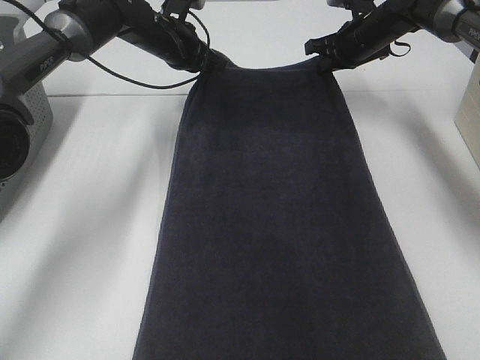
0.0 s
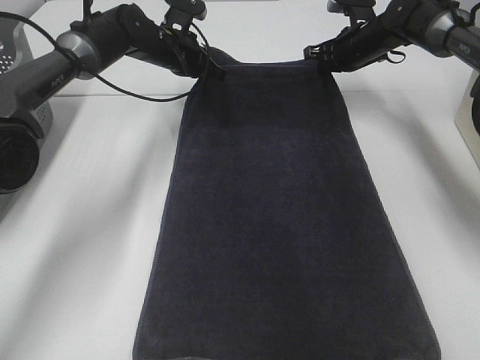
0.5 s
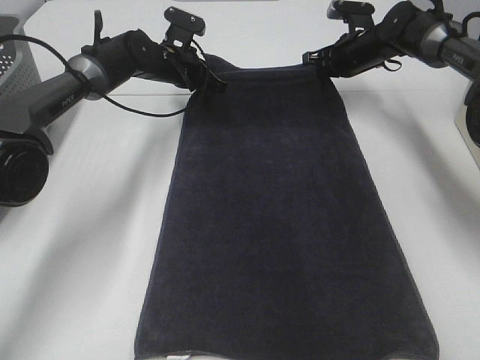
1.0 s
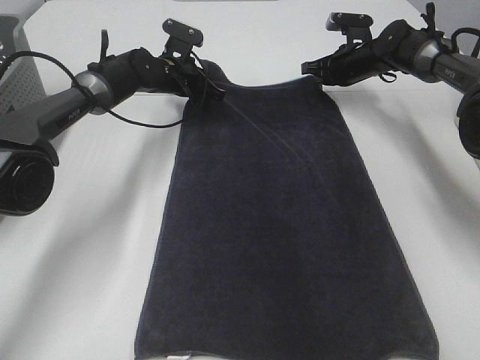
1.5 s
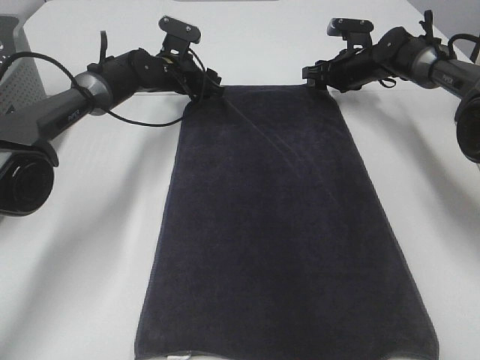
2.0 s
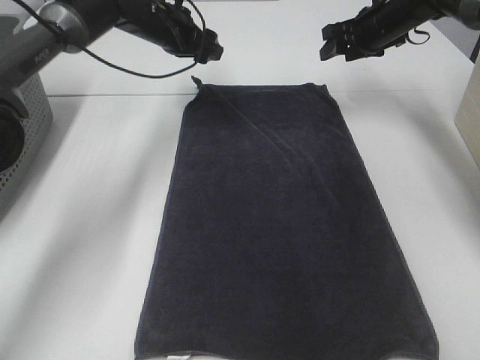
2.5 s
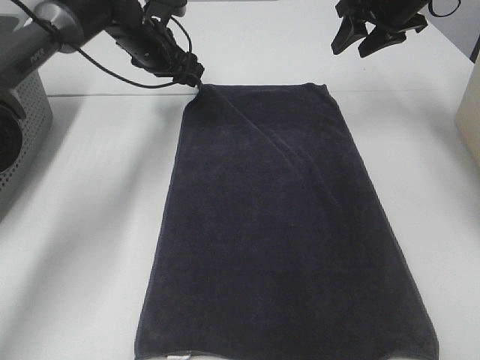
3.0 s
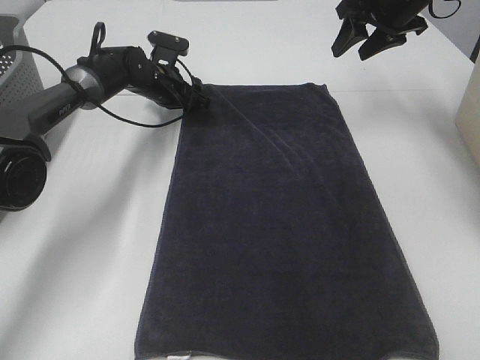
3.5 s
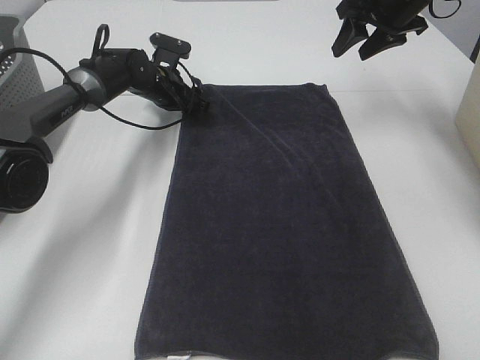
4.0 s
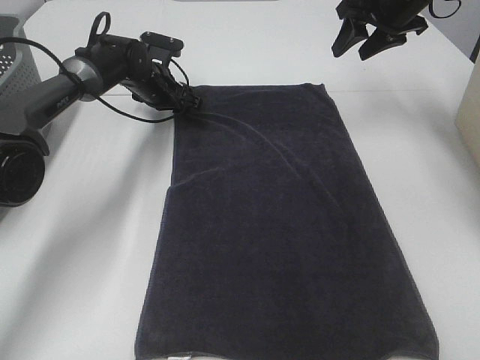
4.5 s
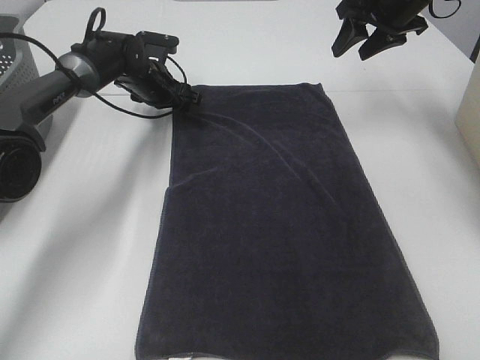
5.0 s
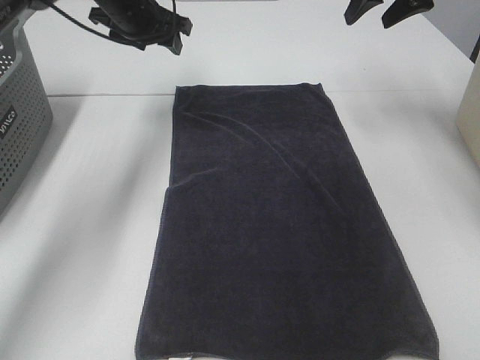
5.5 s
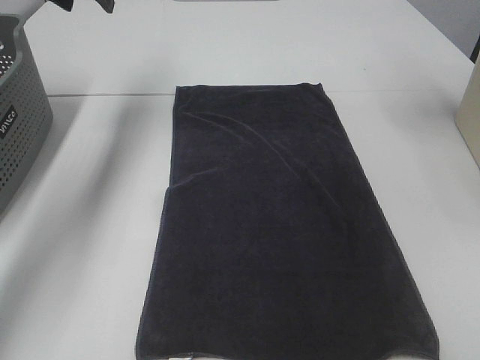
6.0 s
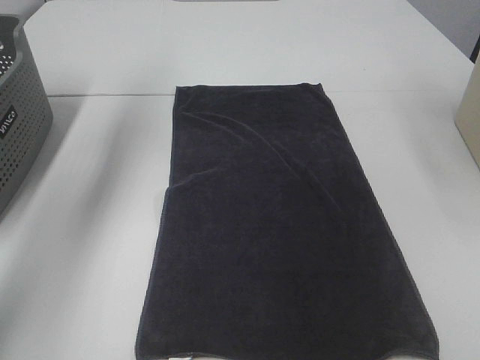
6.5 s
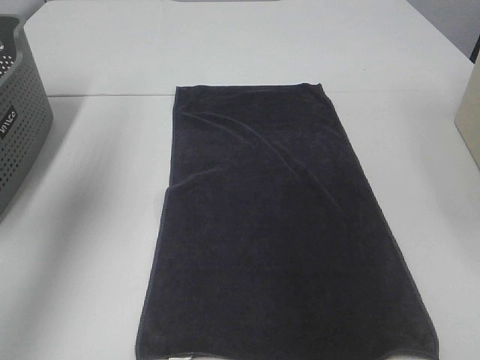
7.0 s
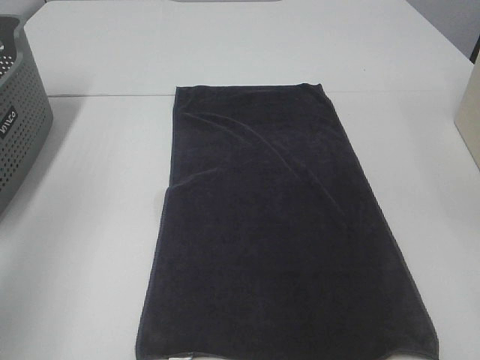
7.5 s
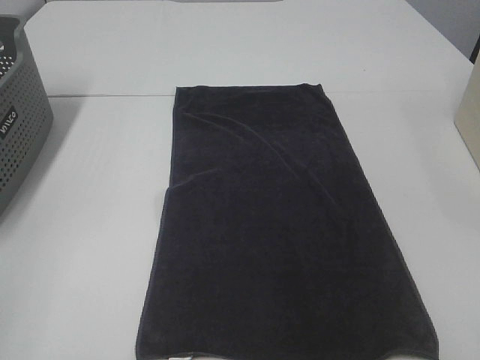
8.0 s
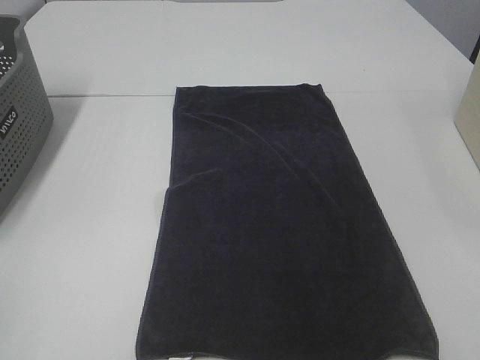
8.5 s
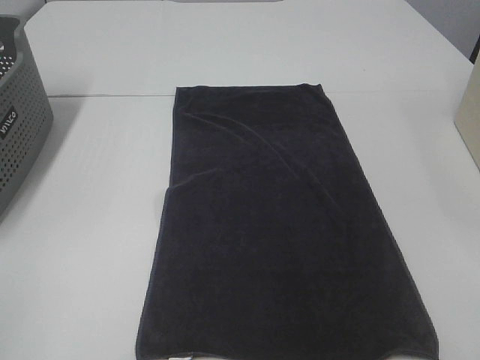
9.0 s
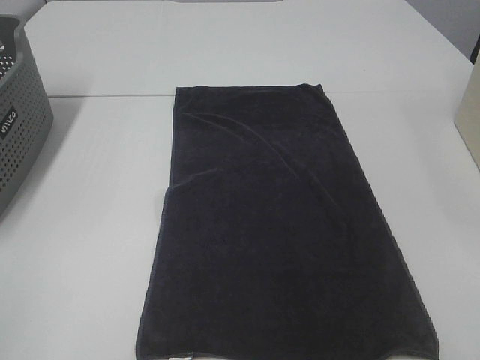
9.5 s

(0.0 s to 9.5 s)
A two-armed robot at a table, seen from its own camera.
Task of the whole recording: Remove the towel and place it.
0.0 s - 2.0 s: The two grippers go approximately 5 cm downward. The right gripper opens, while the left gripper opens.
2.0 s - 4.0 s: The left gripper reaches approximately 10 cm upward, then returns, while the right gripper is displaced upward and backward by about 15 cm.
4.0 s - 5.5 s: The left gripper heads upward, covering approximately 15 cm; the right gripper heads upward, covering about 5 cm.
5.5 s - 7.5 s: The two grippers go about 40 cm backward.
7.5 s - 9.5 s: The left gripper goes roughly 15 cm backward and downward.

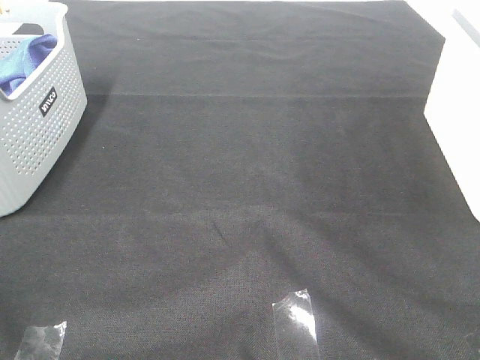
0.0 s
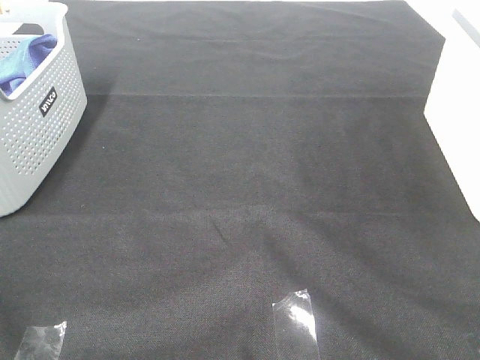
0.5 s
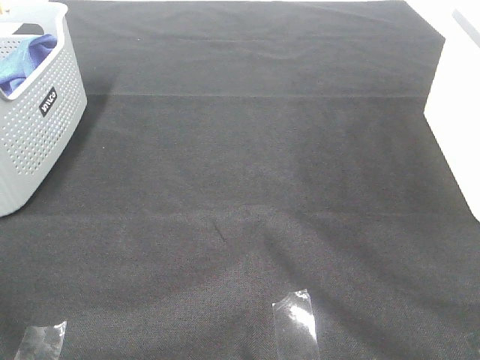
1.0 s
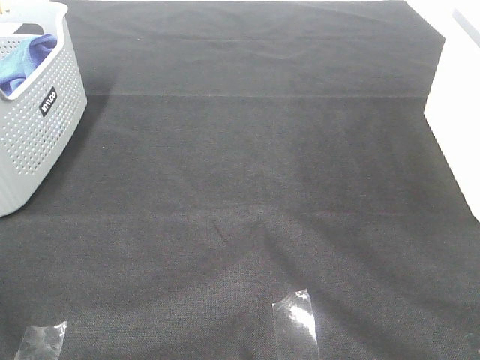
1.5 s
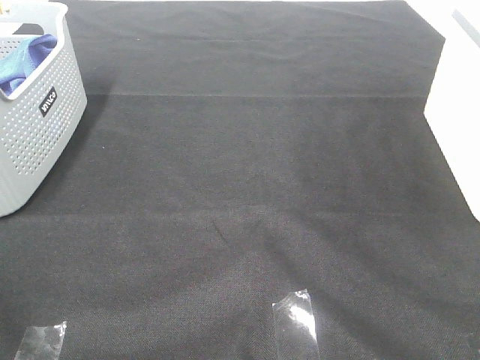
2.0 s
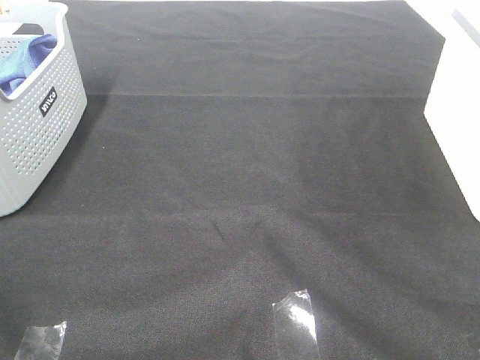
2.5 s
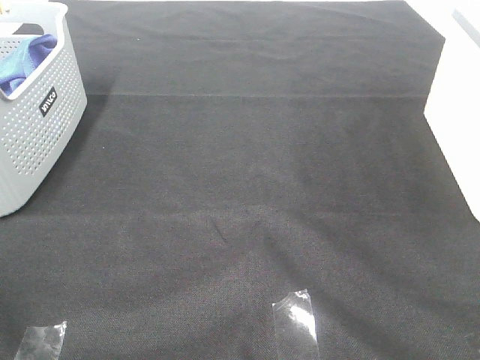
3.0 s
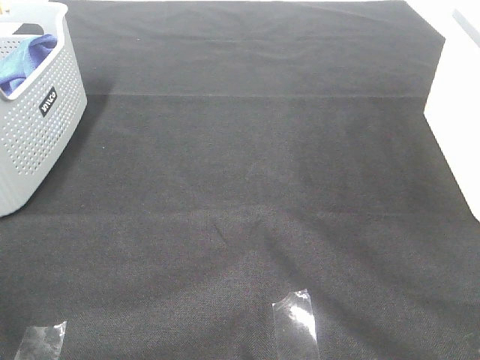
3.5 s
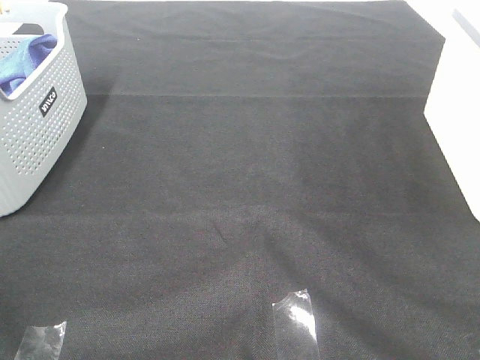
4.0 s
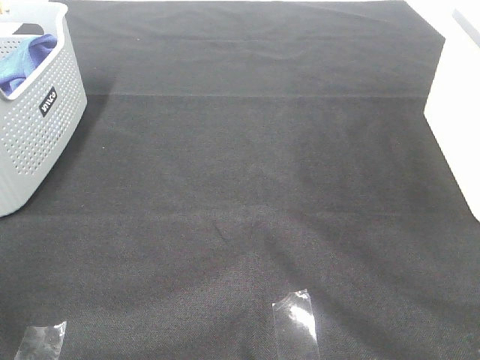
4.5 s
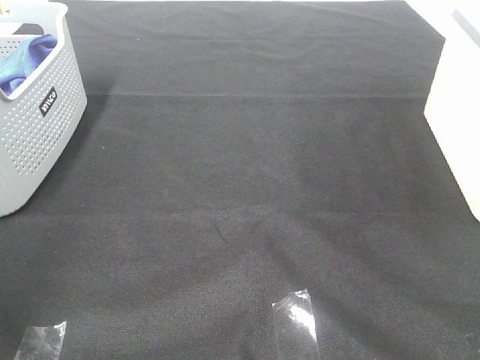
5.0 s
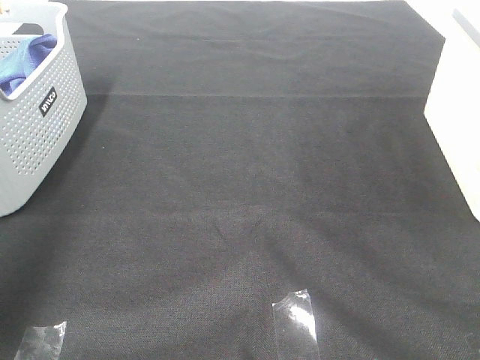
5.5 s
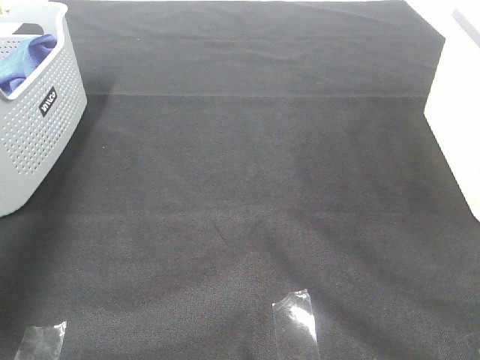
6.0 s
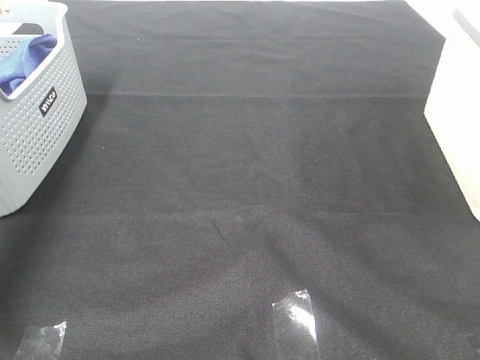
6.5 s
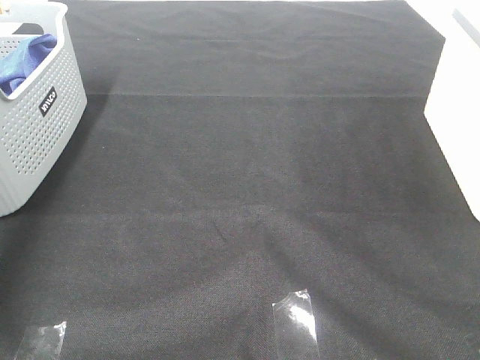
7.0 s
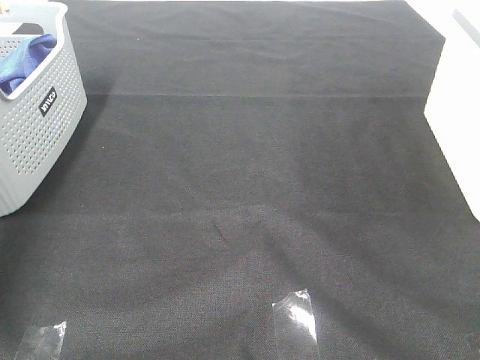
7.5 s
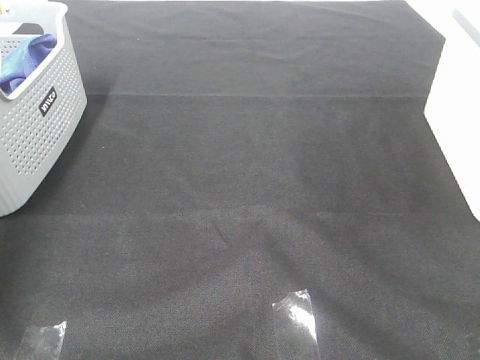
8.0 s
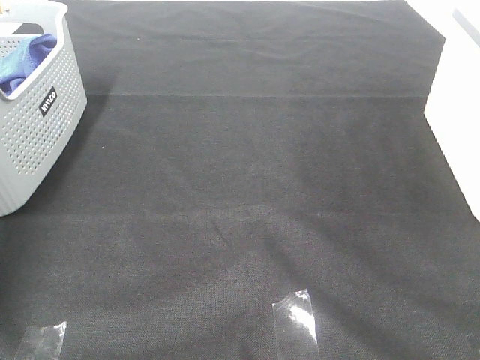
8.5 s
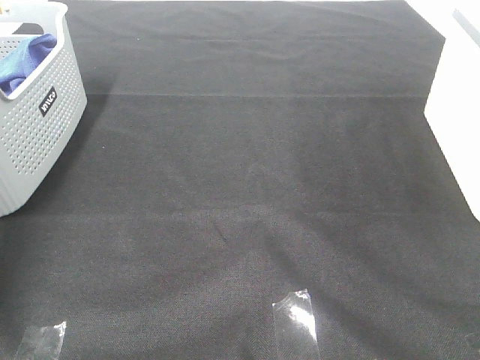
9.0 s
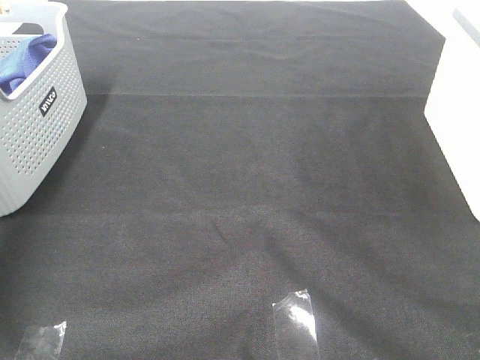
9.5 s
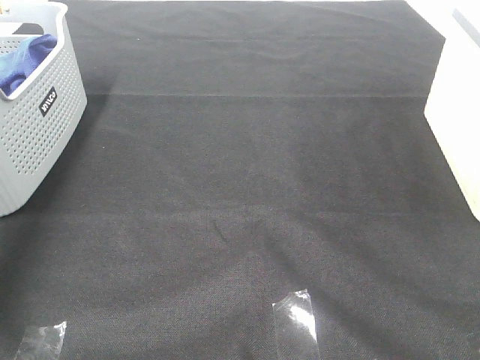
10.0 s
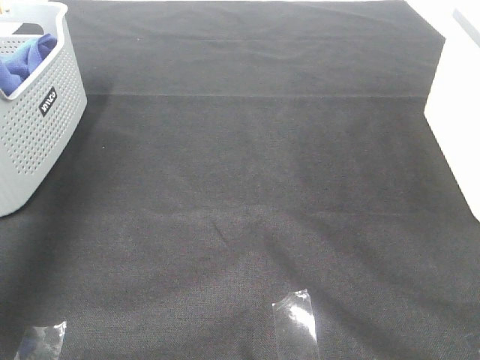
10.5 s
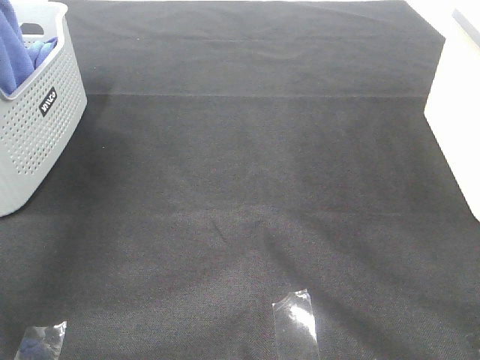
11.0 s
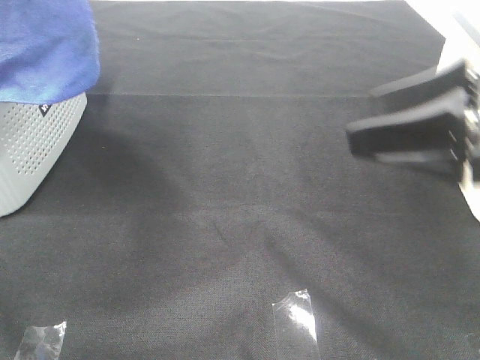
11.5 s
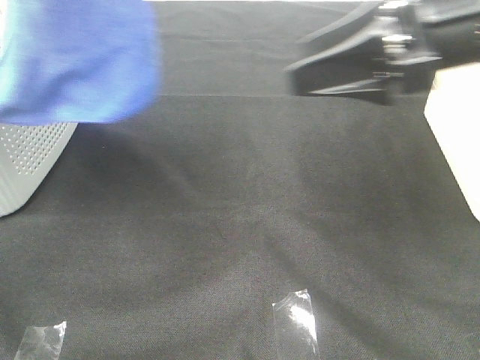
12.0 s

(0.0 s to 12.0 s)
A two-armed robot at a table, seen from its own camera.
Task of the whole recording: Remove the towel and place it.
0.0 s - 4.0 s: Both grippers stay put.
4.0 s - 6.0 s: The left gripper shifts roughly 30 cm forward and upward.
6.0 s - 8.0 s: The left gripper heads downward and forward, covering roughly 30 cm.
10.0 s - 12.0 s: The left gripper heads to the right, backward and upward, covering about 30 cm, while the right gripper is displaced forward and to the left by roughly 30 cm.

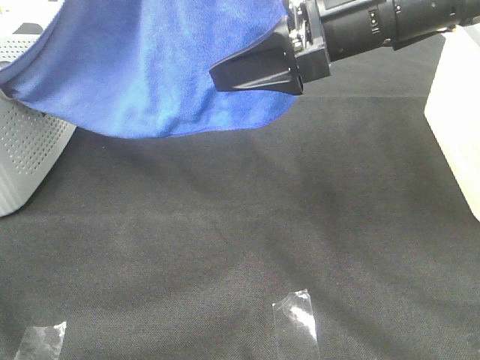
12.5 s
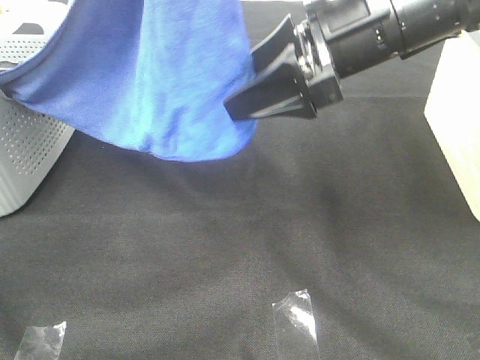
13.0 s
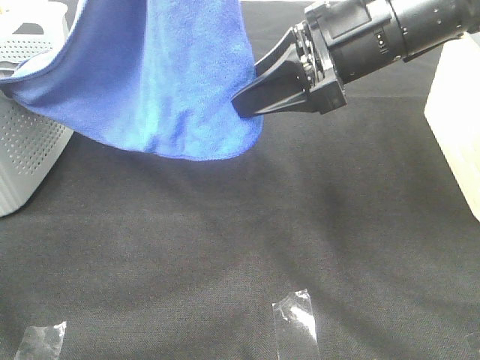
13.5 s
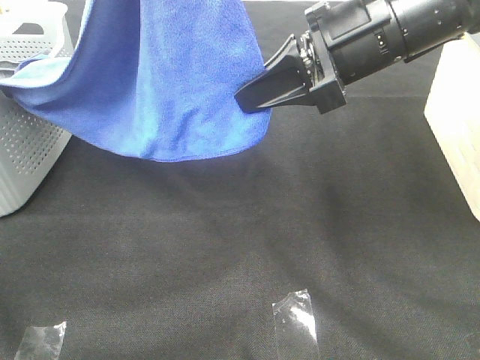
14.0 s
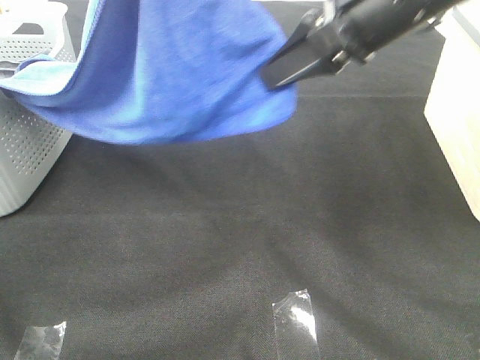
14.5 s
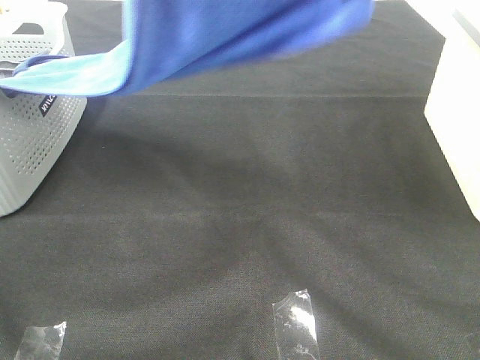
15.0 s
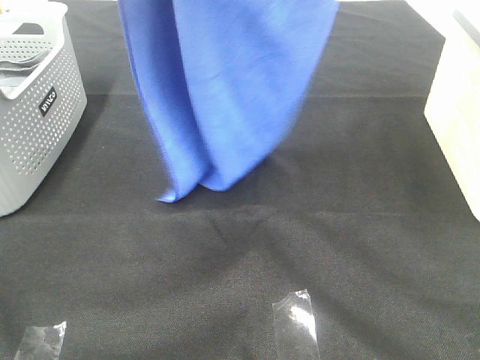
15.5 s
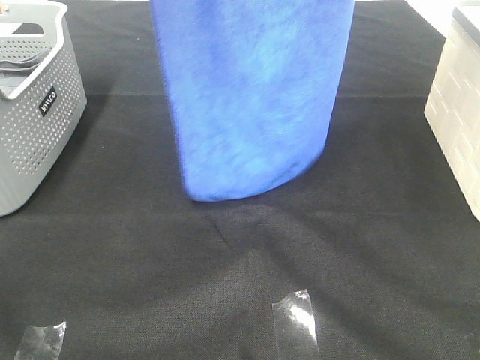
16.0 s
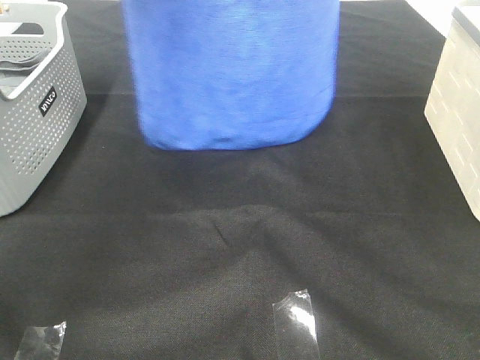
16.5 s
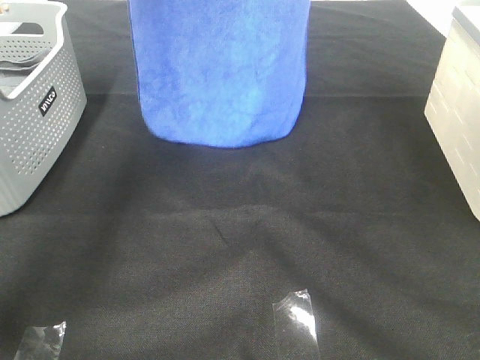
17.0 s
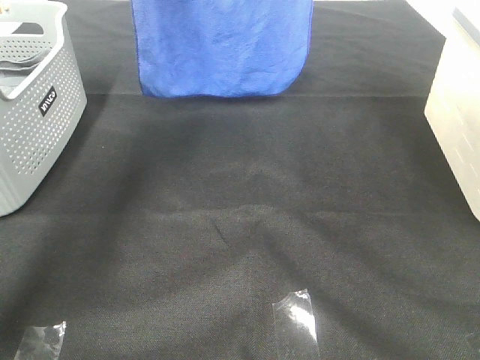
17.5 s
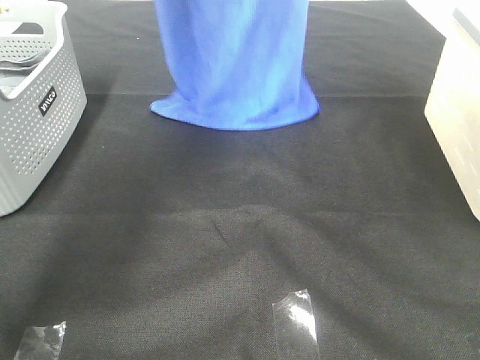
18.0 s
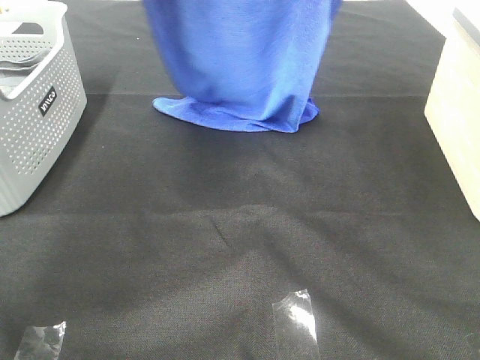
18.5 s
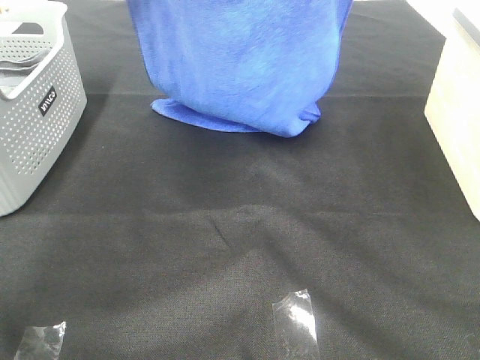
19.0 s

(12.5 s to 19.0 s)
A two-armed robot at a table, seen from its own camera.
Task of the whole recording: Remove the towel and place it.
12.5 s - 14.5 s: The right gripper closes up.
14.5 s - 17.0 s: The left gripper heads forward, covering about 25 cm. Meanwhile the right gripper is displaced upward and forward by approximately 25 cm.
17.0 s - 19.0 s: The two grippers go approximately 5 cm backward.
